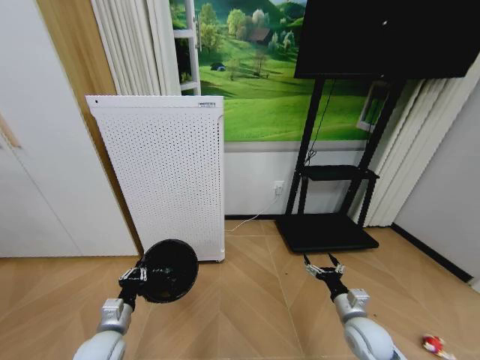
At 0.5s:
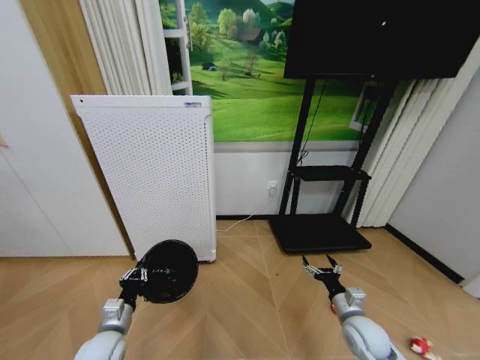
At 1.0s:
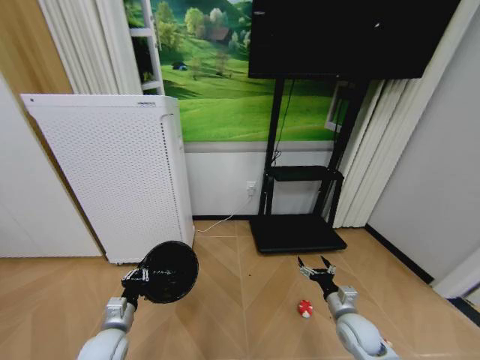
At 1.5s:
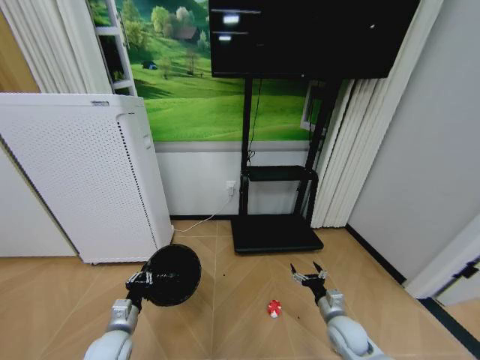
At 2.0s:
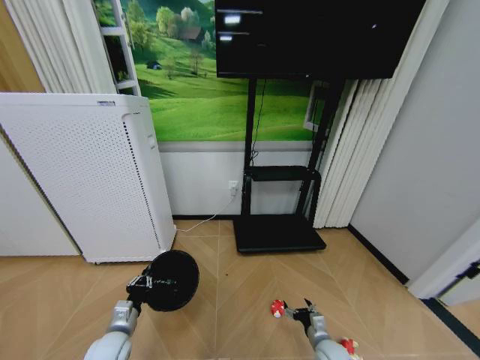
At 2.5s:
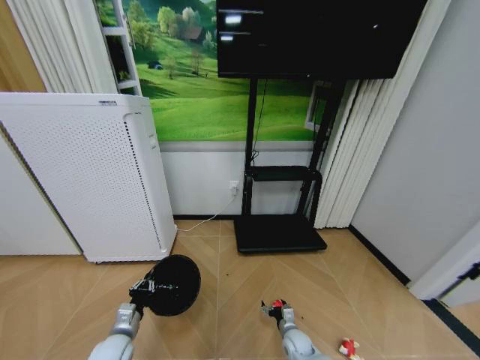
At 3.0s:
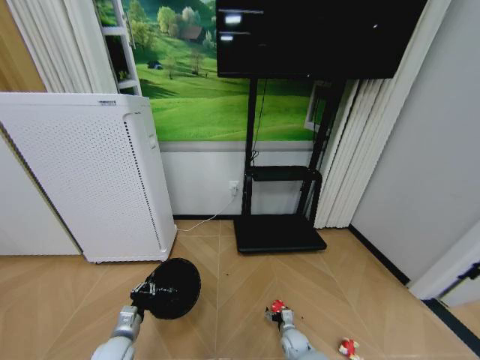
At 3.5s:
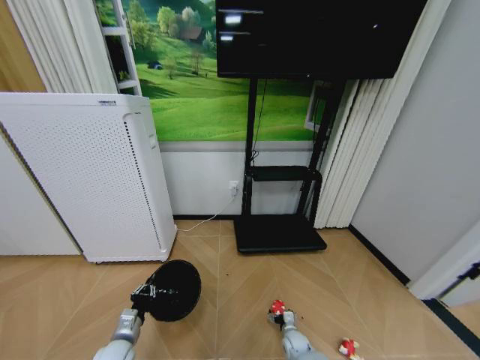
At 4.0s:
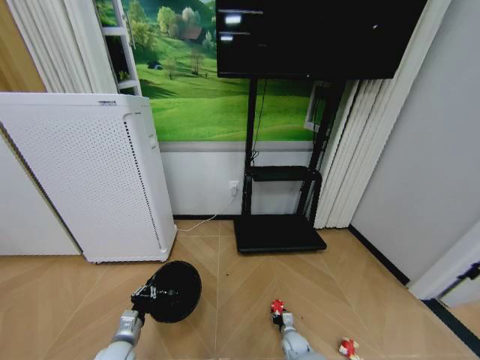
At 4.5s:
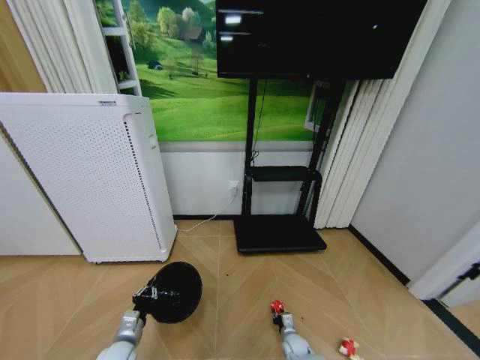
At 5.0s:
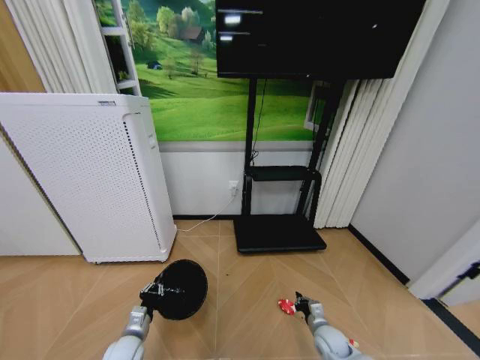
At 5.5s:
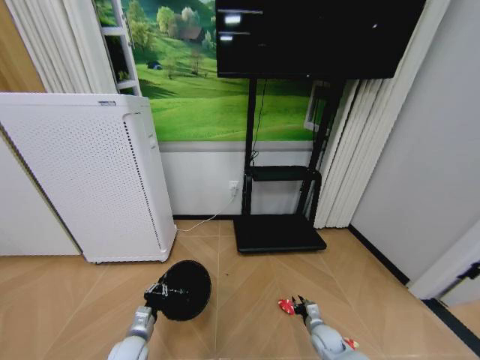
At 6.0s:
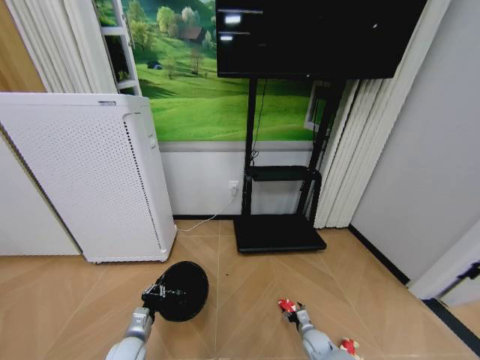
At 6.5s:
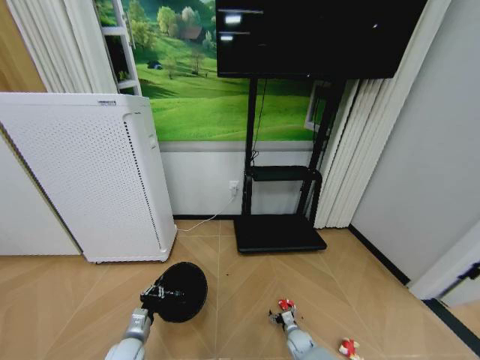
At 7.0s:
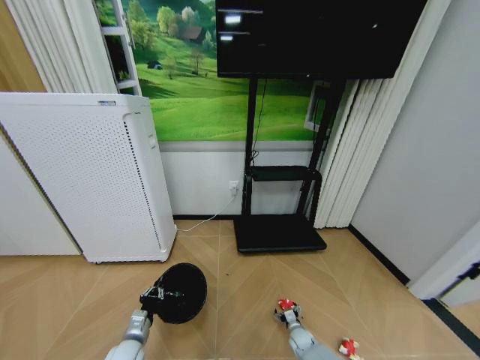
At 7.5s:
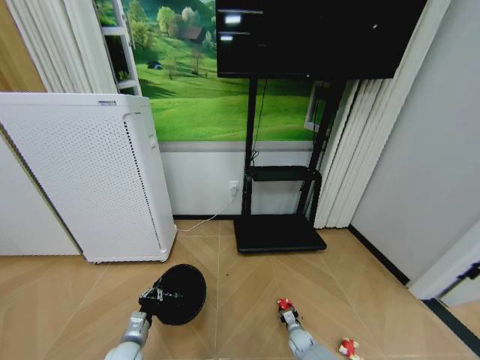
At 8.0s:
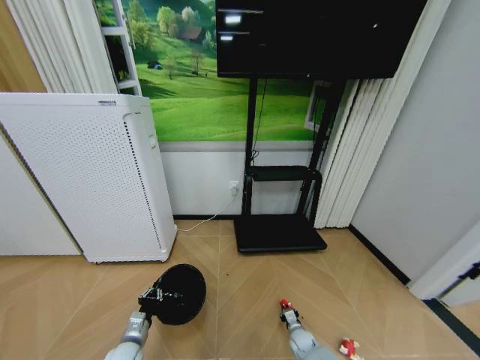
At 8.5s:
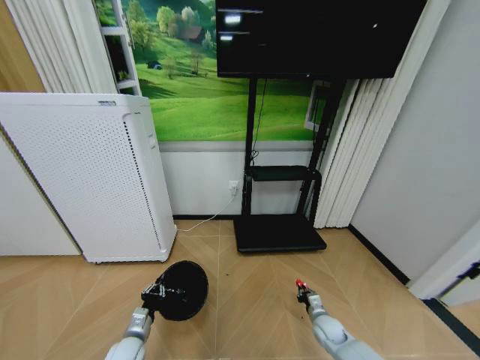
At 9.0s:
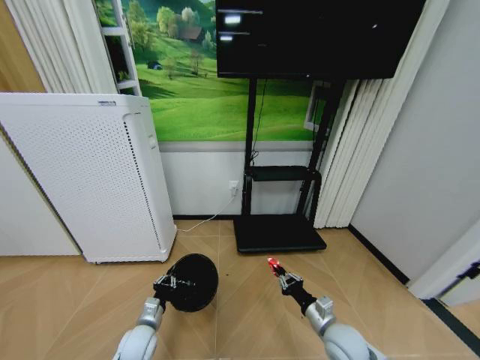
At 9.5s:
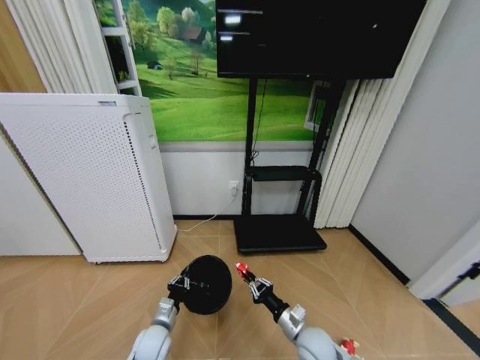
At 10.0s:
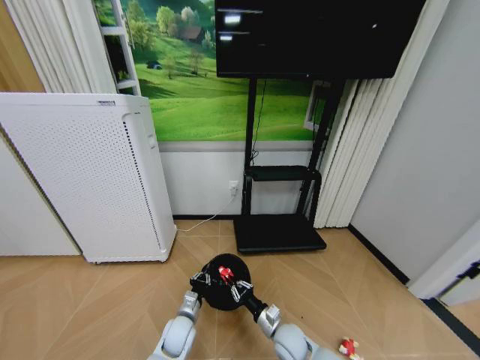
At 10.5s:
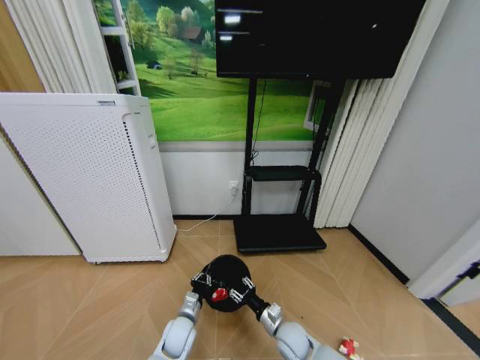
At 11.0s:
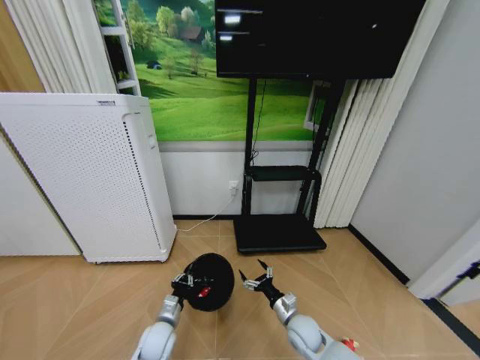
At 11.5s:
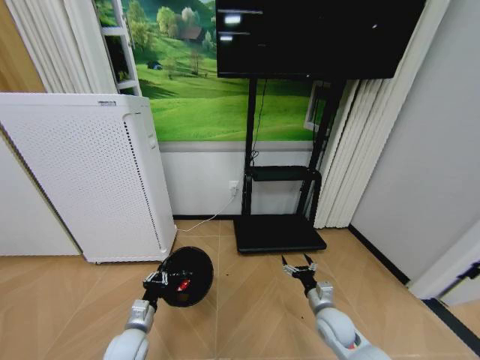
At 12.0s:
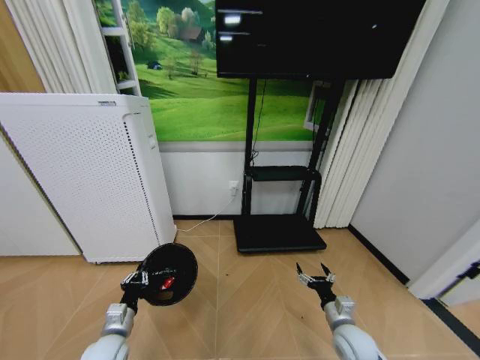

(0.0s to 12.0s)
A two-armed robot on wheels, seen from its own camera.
Task of the whole recording: Pick up the trash bin and place the garbage on the floor into it.
0.0s - 2.0s: The right gripper goes roughly 15 cm downward.
2.0s - 4.0s: The right gripper moves downward, to the left and forward, some 15 cm, and closes its fingers.
4.0s - 6.0s: The right gripper moves to the right, some 5 cm, travels upward and back again, some 10 cm each way, and closes, then reopens.
6.0s - 8.0s: The right gripper shifts by some 5 cm, and closes its fingers.
8.0s - 10.0s: The left gripper shifts some 15 cm to the right and forward. Meanwhile the right gripper heads upward and to the left, covering roughly 20 cm.
10.0s - 12.0s: The left gripper heads to the left, upward and backward, covering some 20 cm, while the right gripper goes about 15 cm to the right, and opens.

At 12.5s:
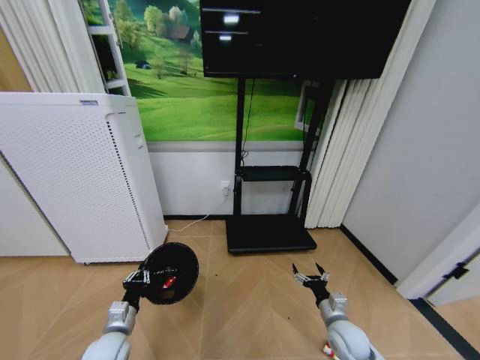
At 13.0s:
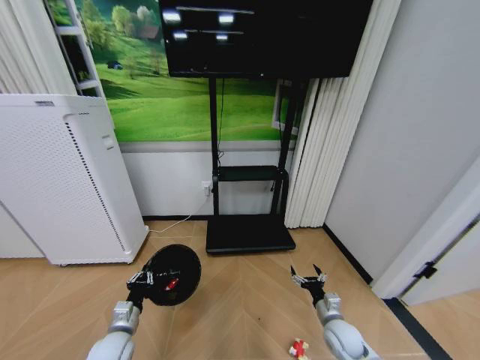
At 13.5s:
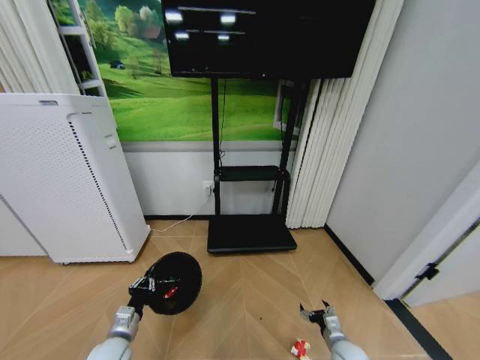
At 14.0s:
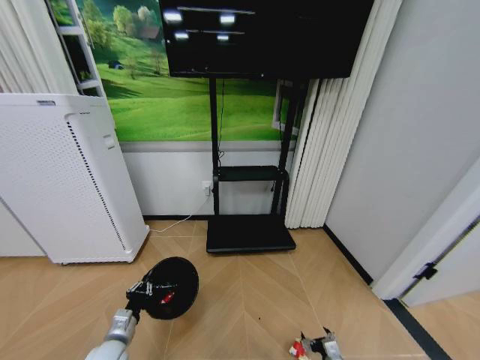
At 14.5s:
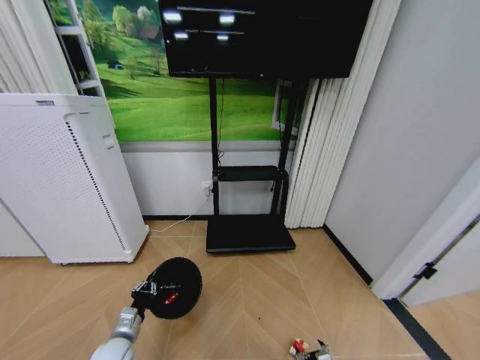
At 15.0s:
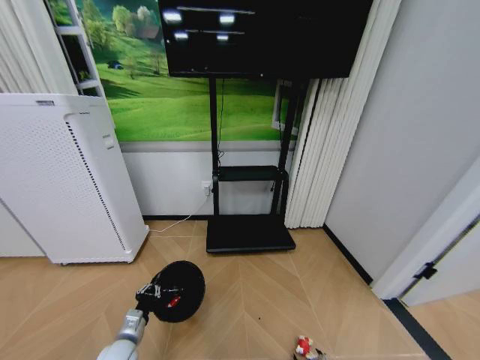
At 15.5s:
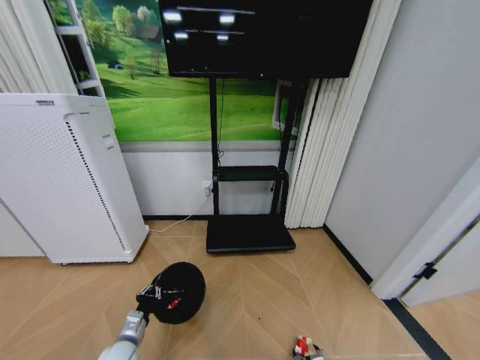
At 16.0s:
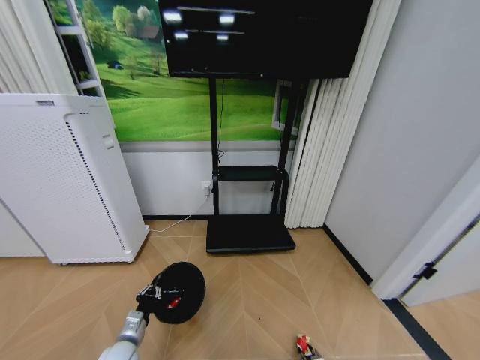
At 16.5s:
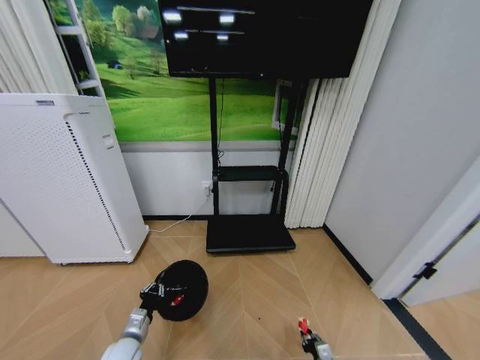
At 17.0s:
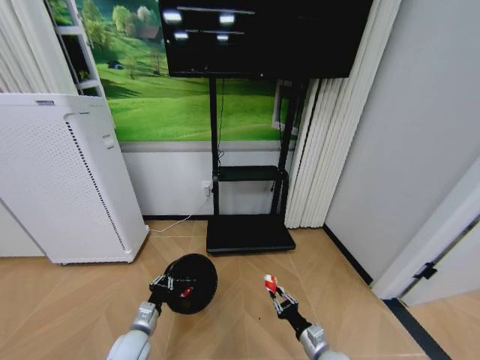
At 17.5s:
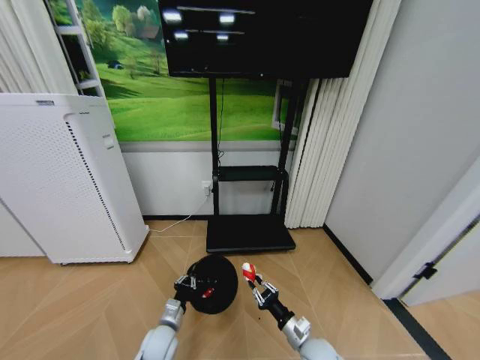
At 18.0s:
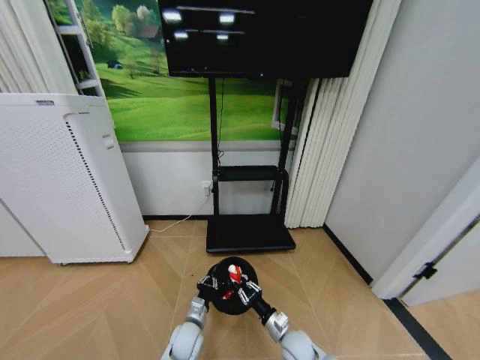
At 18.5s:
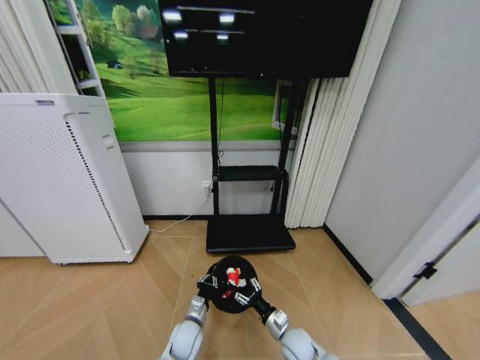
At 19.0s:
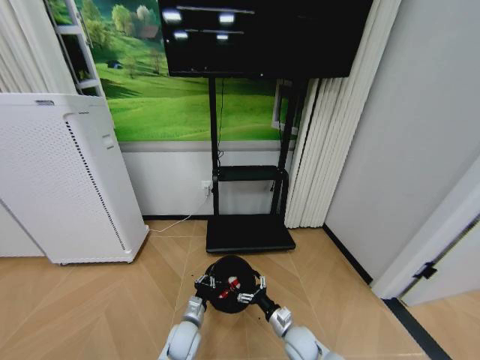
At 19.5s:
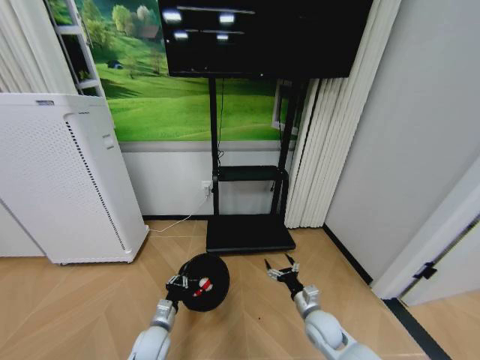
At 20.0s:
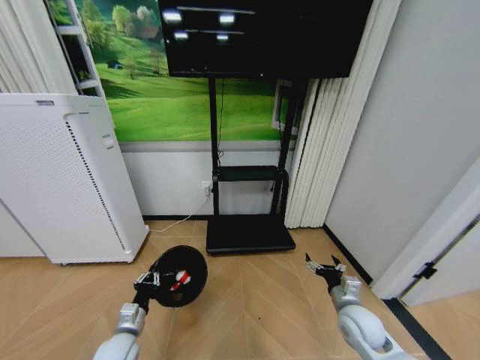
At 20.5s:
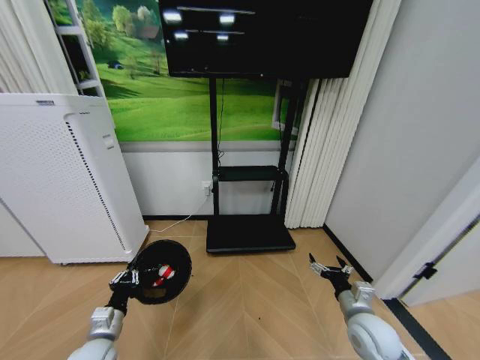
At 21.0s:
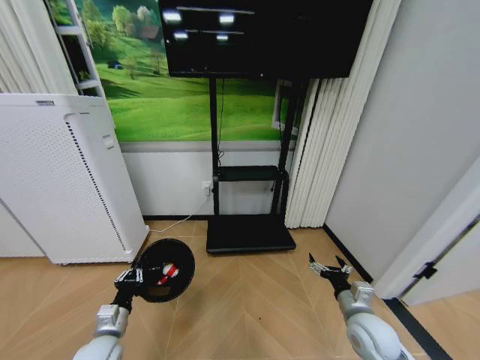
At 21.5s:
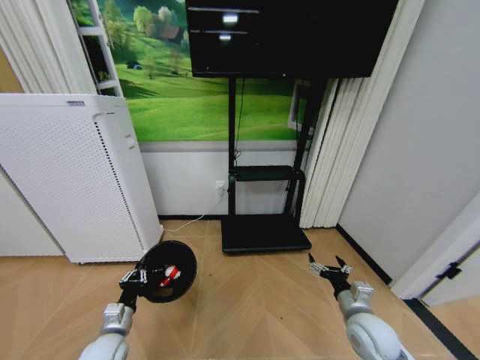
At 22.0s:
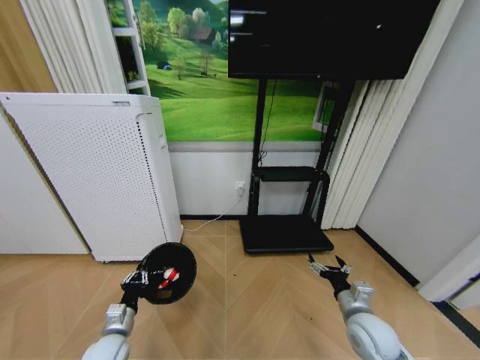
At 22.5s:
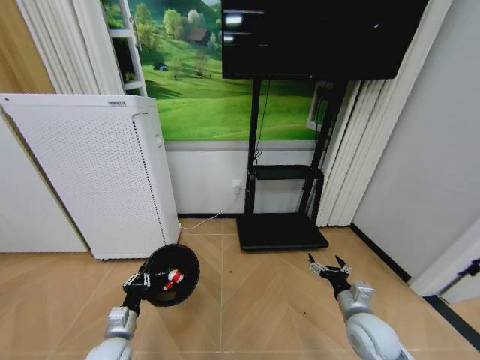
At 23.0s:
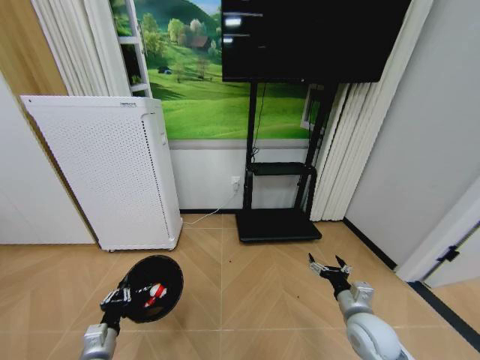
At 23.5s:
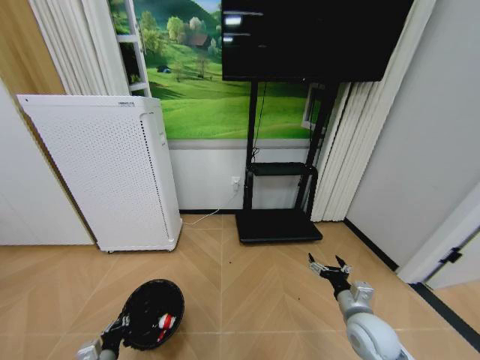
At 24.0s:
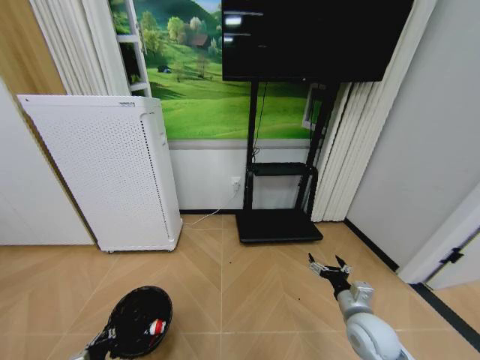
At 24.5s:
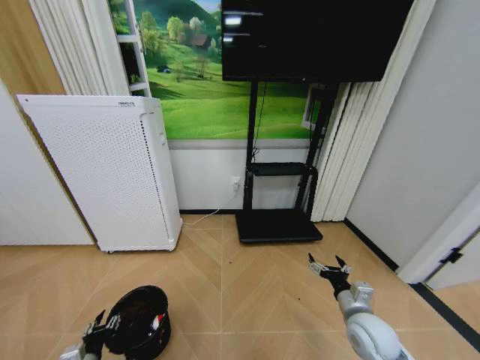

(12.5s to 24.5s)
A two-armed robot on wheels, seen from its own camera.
Task of the whole recording: Pick up the trash bin and place the garbage on the floor into it.
12.5s - 14.5s: The right gripper shifts about 20 cm downward and backward.
14.5s - 16.5s: The right gripper closes up.
16.5s - 18.5s: The right gripper travels to the left, upward and forward by some 20 cm, and opens up. The left gripper heads to the right, covering approximately 15 cm.
18.5s - 20.5s: The left gripper heads to the left and upward, covering some 20 cm; the right gripper is displaced upward and to the right by approximately 20 cm, and opens its fingers.
22.5s - 24.5s: The left gripper moves to the left and backward, about 10 cm, and opens its fingers.

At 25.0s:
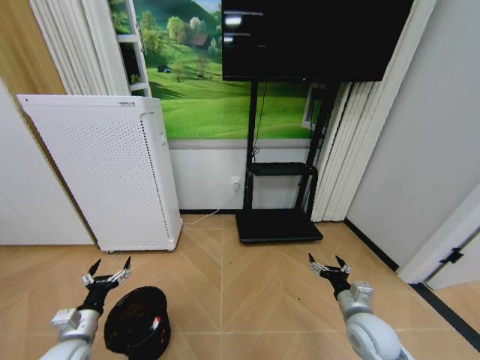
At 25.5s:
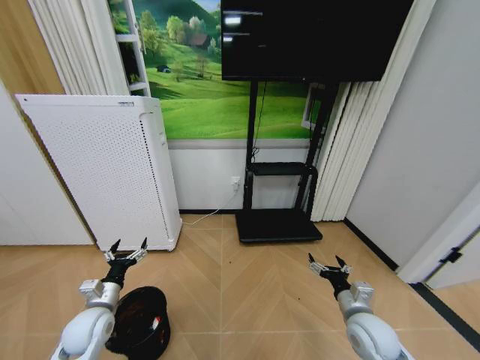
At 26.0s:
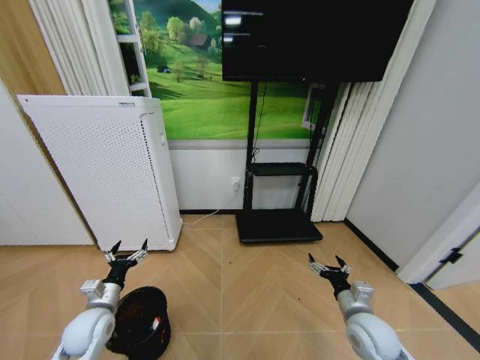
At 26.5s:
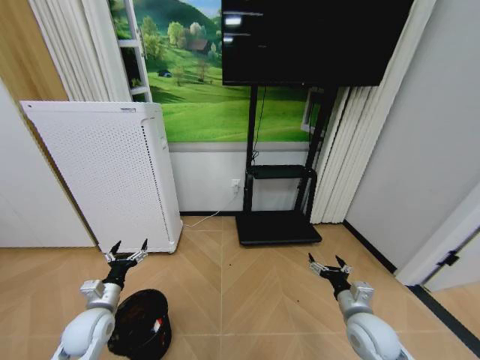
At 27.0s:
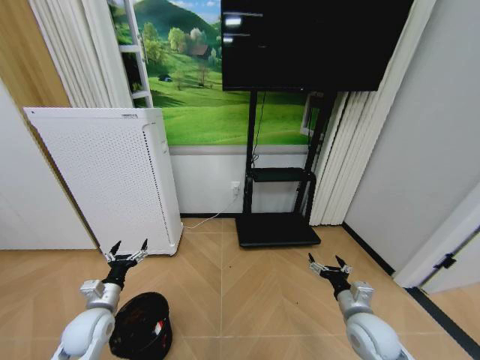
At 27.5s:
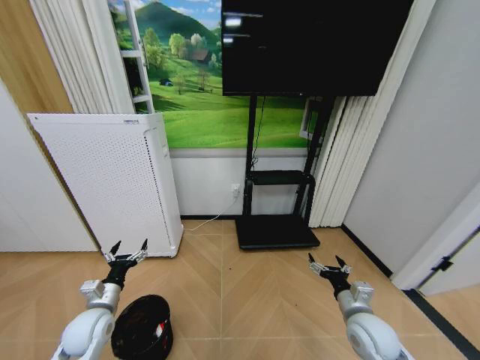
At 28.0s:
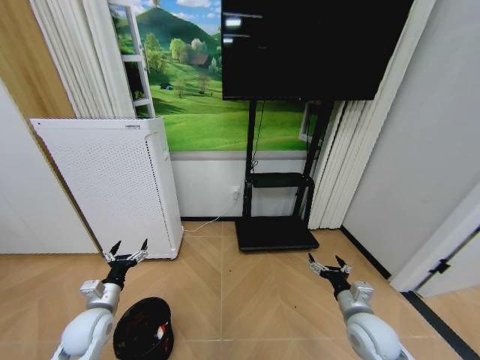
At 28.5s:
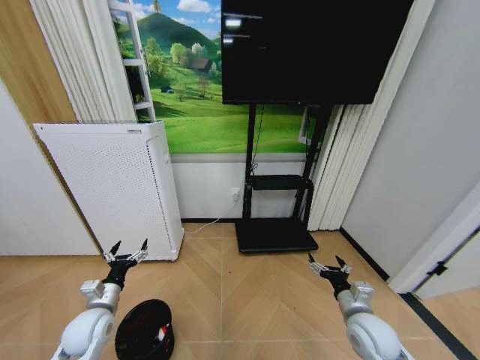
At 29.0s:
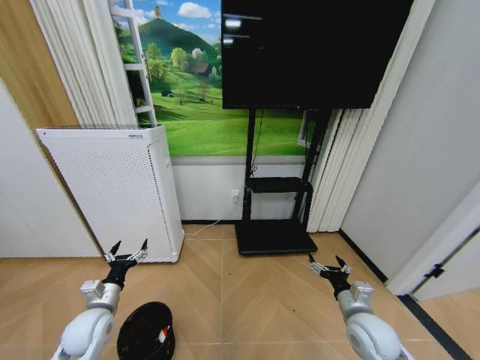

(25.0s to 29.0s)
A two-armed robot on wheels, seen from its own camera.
Task of the whole recording: Pick up the trash bin and place the garbage on the floor into it.
25.0s - 27.0s: The left gripper goes about 10 cm forward.
27.0s - 29.0s: The two grippers keep their place.
